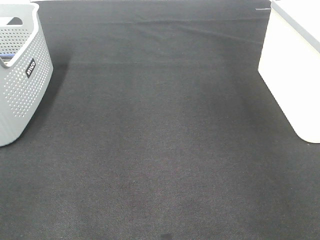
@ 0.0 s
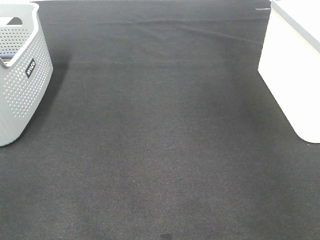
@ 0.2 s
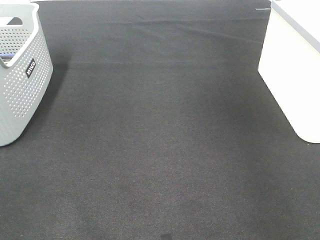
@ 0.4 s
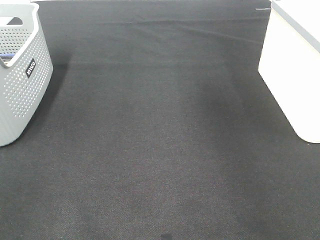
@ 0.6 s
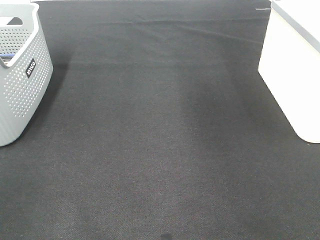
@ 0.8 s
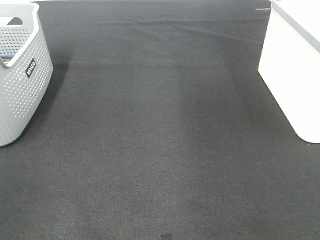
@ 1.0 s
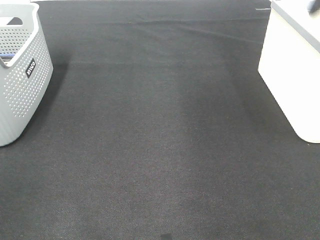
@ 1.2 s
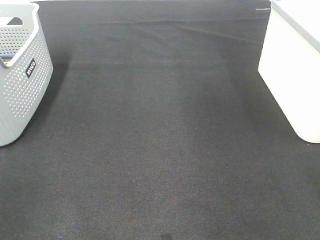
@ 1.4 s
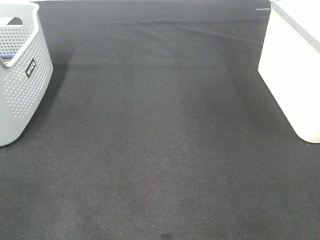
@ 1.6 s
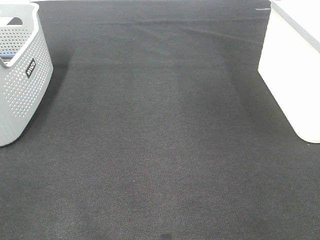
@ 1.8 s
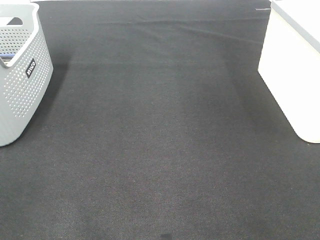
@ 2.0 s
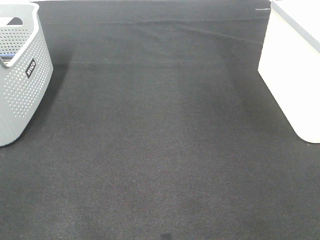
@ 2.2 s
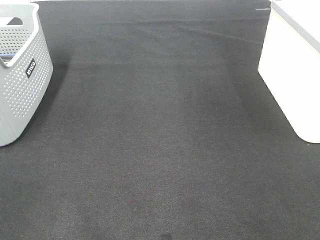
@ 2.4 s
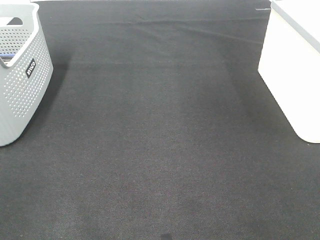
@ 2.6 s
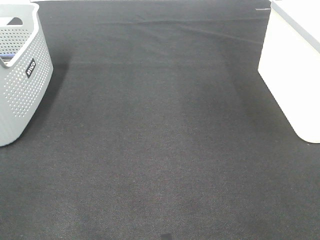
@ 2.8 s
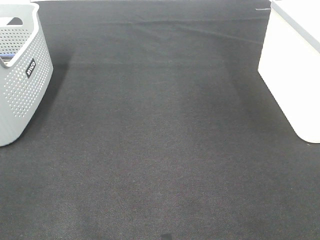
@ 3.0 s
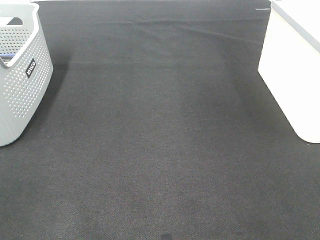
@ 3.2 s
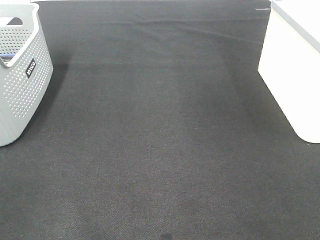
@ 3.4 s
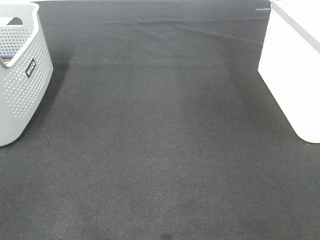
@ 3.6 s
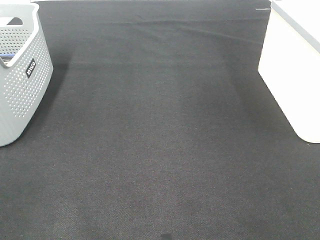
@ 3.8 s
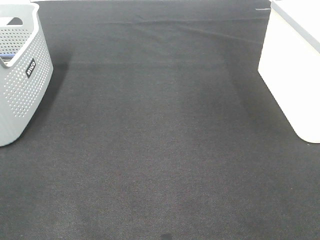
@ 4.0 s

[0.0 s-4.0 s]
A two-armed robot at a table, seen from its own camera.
2.6 to 4.0 s: Both grippers stay put.

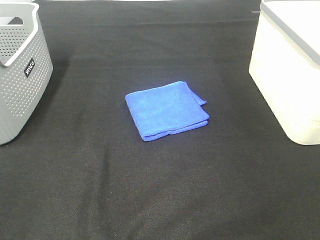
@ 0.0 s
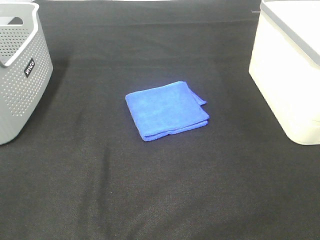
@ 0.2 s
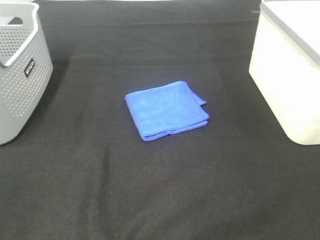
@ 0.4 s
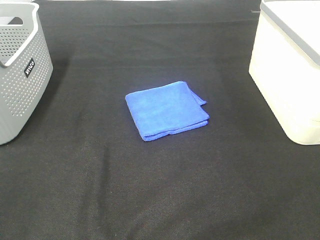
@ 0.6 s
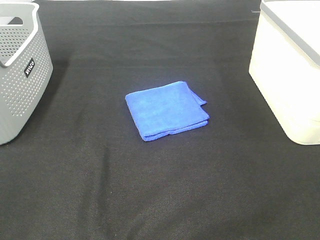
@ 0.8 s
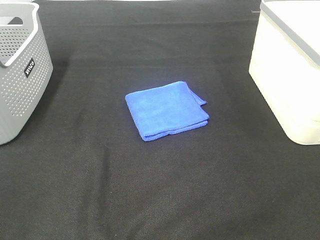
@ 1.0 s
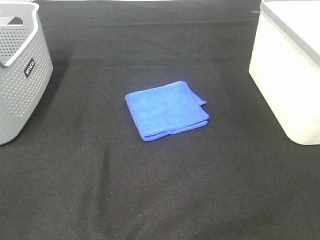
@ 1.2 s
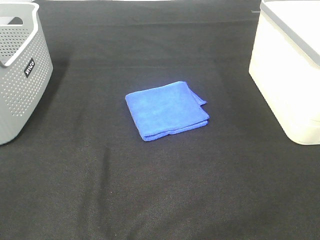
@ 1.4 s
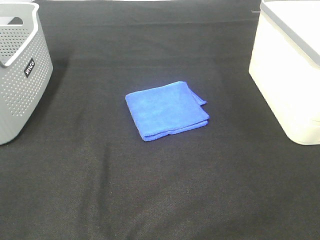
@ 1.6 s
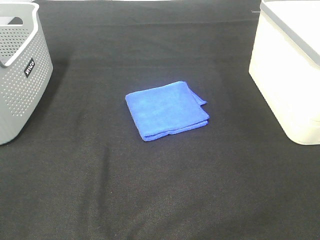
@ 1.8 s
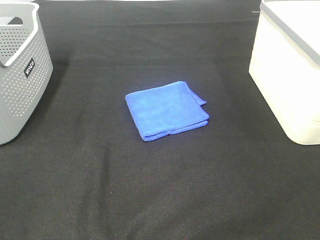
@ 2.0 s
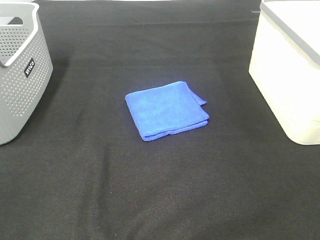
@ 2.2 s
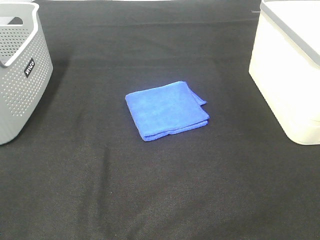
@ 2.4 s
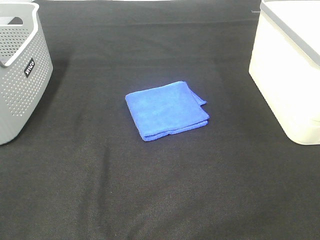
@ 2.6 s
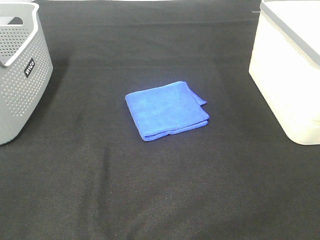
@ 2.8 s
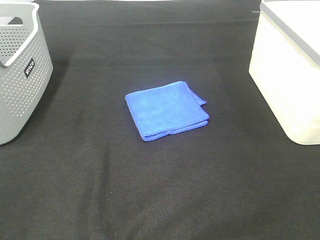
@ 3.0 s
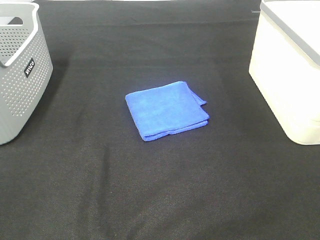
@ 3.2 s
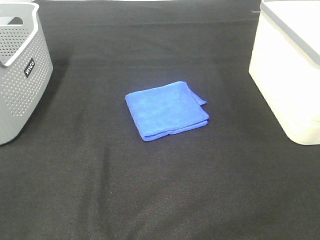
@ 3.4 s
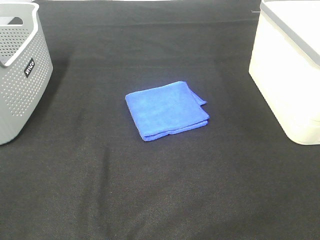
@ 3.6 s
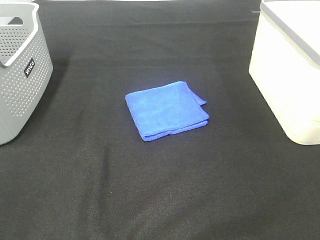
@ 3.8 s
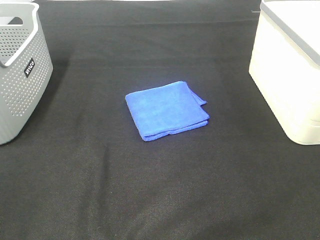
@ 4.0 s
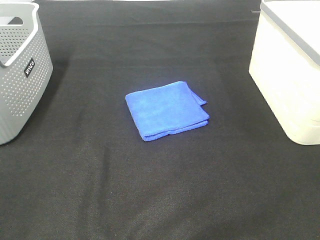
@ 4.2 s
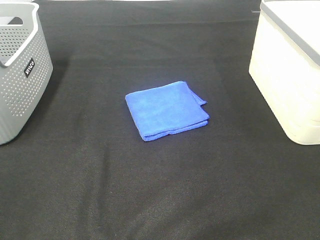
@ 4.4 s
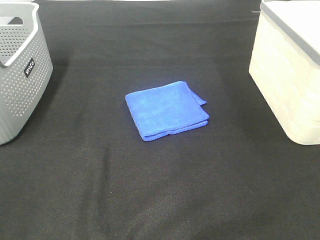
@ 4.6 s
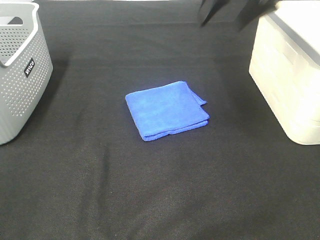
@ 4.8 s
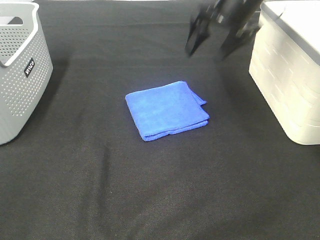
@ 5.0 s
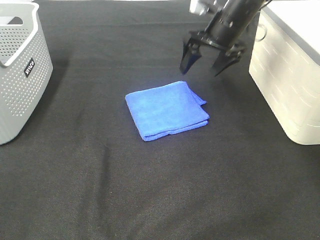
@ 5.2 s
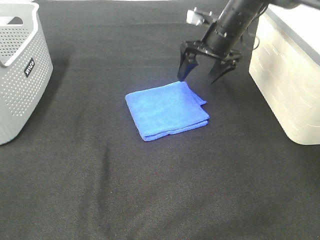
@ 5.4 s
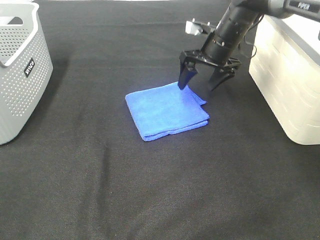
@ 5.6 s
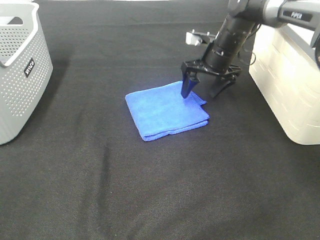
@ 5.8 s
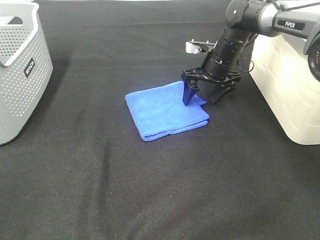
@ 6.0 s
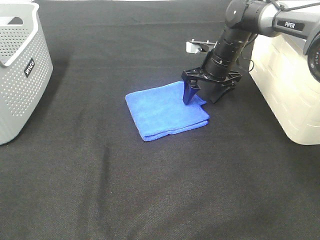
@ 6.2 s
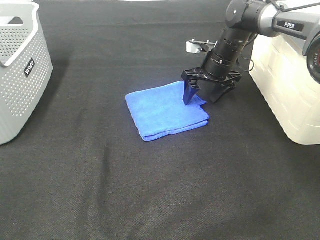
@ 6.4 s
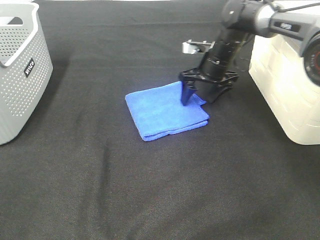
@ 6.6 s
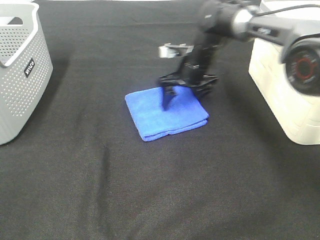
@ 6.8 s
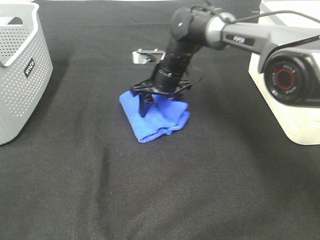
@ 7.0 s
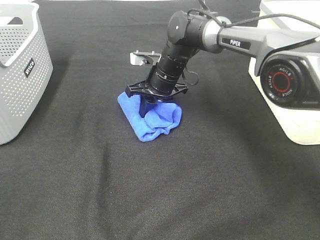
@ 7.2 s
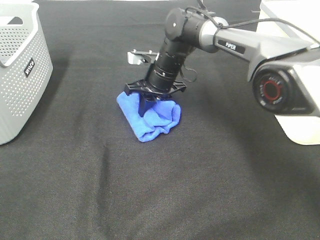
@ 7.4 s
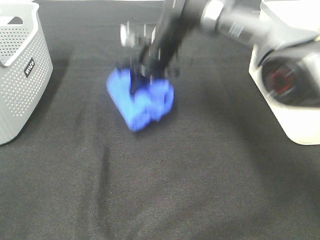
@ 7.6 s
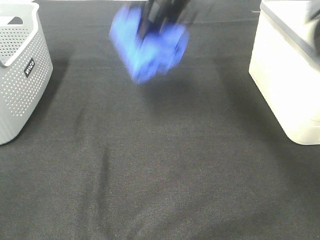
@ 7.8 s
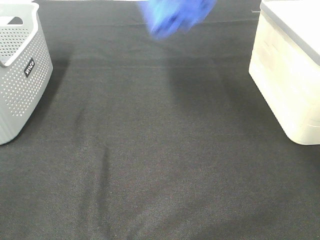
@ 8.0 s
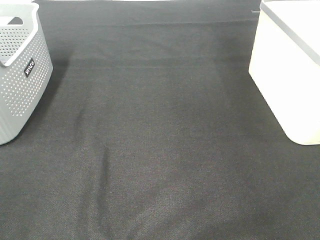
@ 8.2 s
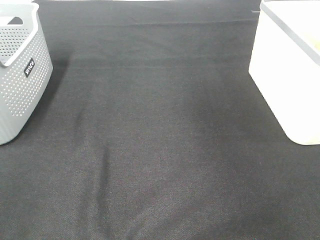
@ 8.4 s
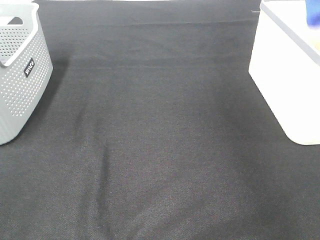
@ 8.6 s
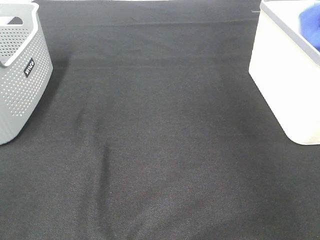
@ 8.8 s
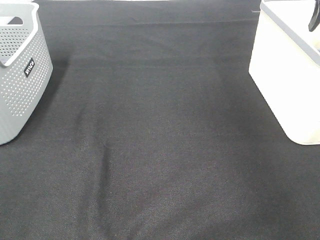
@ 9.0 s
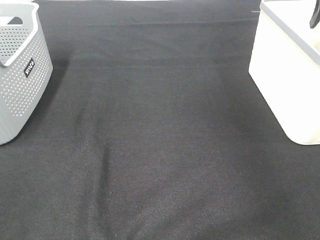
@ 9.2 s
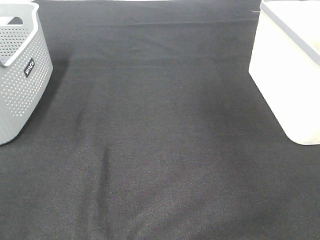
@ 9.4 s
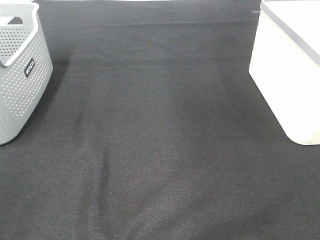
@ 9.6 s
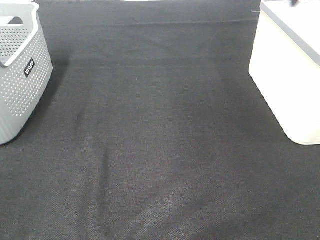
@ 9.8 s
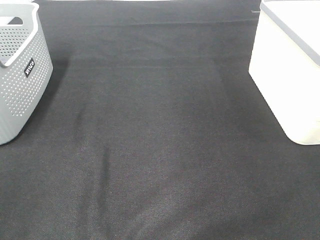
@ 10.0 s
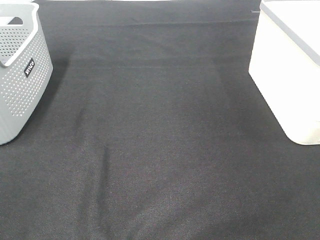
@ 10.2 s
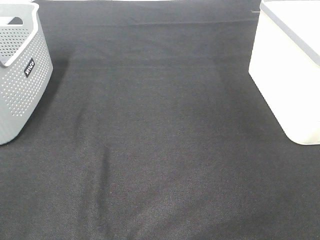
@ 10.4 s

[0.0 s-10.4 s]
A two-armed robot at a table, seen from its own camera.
Step, 0.0 to 7.4 s: Right hand: grab the folded blue towel.
Step, 7.6 to 8.8 s: Right hand: place the blue towel in right basket.
0.0 to 3.0 s: Neither gripper changes place.
4.4 to 6.0 s: The right gripper is displaced downward and forward by about 40 cm.
6.0 to 7.4 s: The right gripper is displaced to the left by roughly 15 cm, and closes up.
7.4 to 9.0 s: The right gripper is displaced to the right and upward by roughly 40 cm, and opens up.

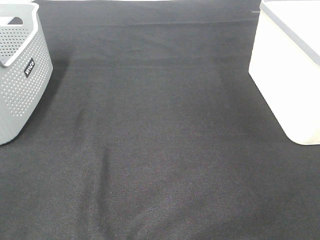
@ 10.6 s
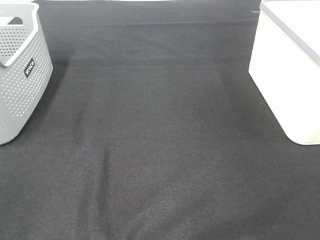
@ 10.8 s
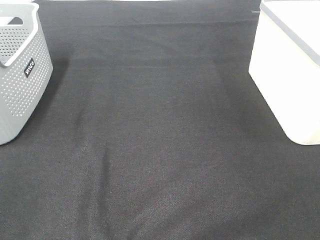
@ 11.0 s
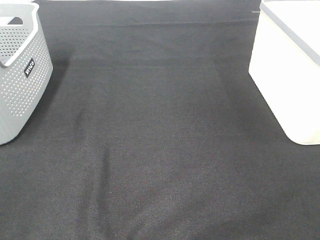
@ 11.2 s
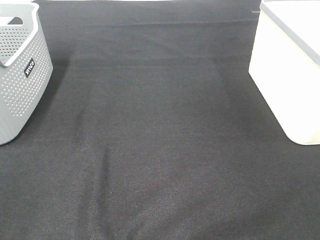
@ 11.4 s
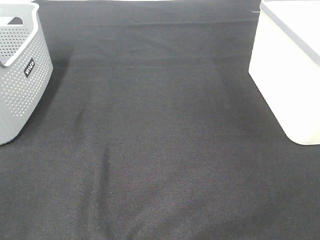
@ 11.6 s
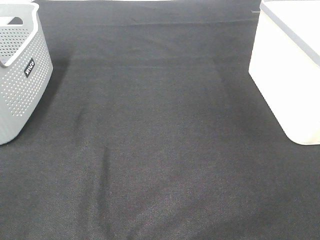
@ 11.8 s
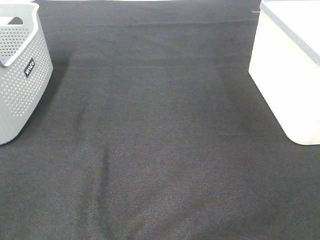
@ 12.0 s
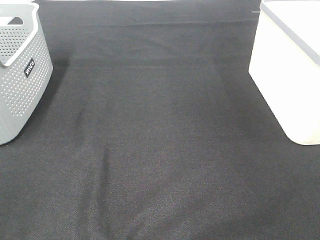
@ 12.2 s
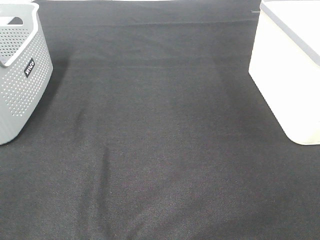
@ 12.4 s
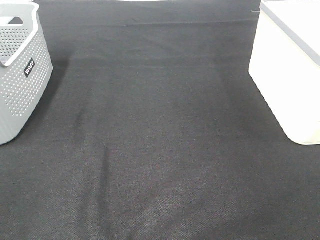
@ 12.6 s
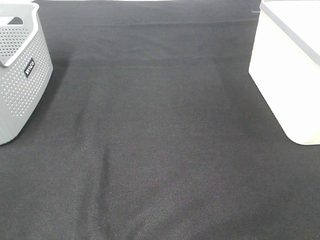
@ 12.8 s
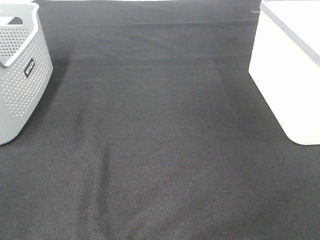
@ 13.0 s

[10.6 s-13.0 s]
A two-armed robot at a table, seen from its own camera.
11.8 to 13.0 s: The two grippers keep their place.

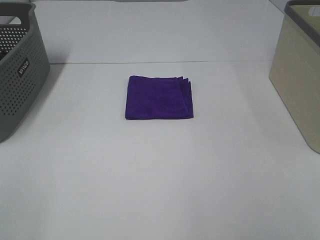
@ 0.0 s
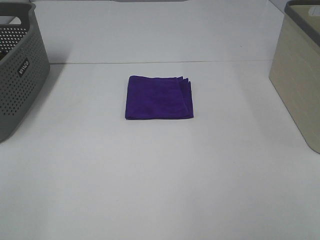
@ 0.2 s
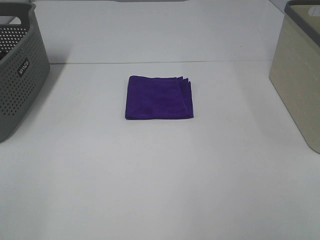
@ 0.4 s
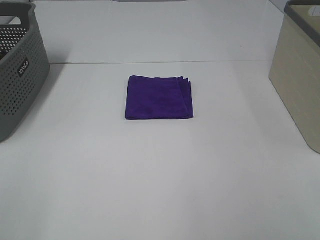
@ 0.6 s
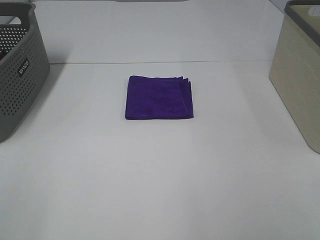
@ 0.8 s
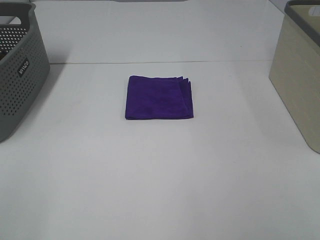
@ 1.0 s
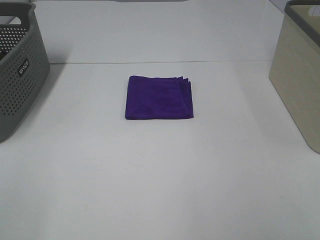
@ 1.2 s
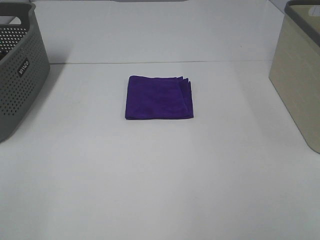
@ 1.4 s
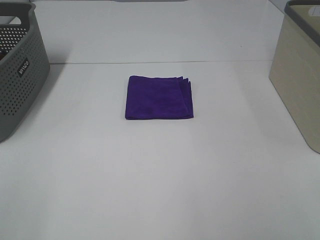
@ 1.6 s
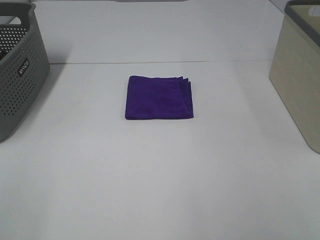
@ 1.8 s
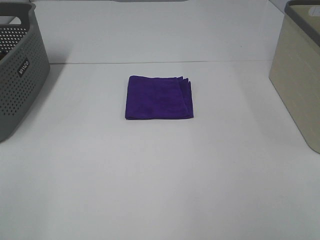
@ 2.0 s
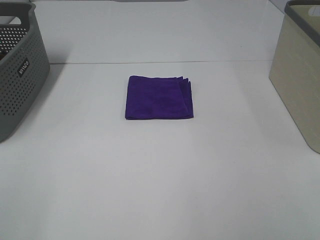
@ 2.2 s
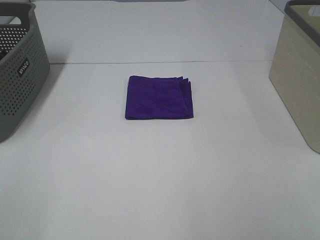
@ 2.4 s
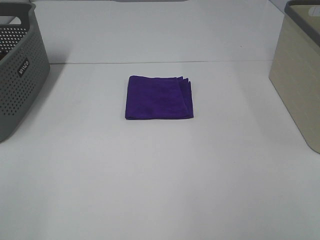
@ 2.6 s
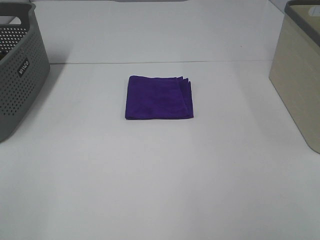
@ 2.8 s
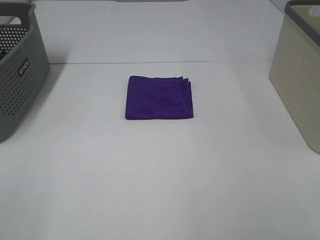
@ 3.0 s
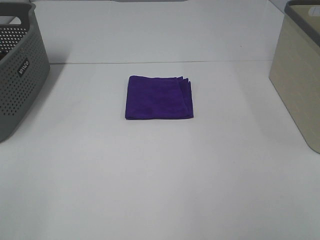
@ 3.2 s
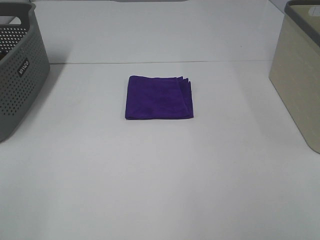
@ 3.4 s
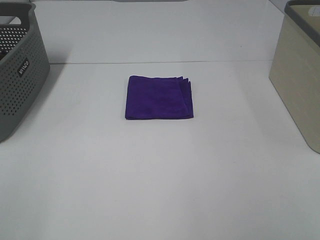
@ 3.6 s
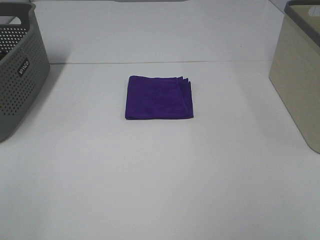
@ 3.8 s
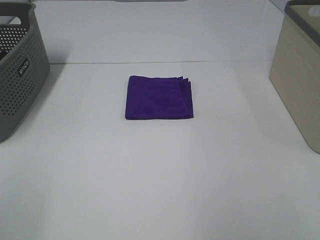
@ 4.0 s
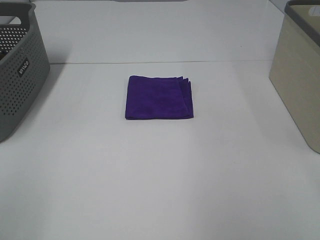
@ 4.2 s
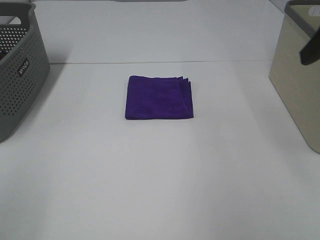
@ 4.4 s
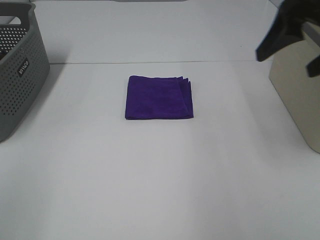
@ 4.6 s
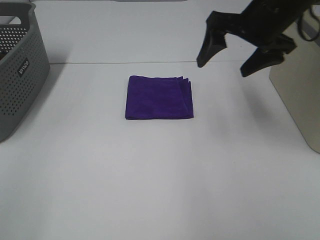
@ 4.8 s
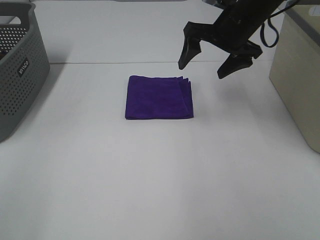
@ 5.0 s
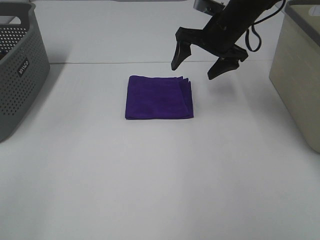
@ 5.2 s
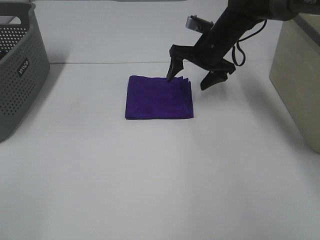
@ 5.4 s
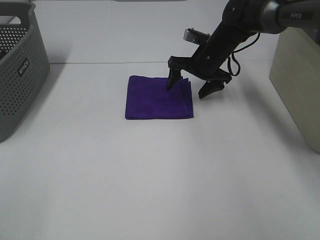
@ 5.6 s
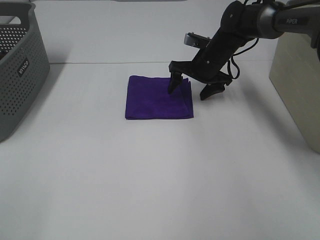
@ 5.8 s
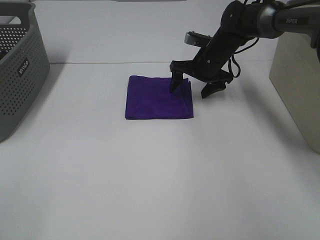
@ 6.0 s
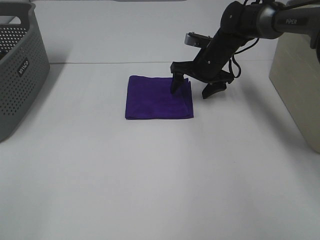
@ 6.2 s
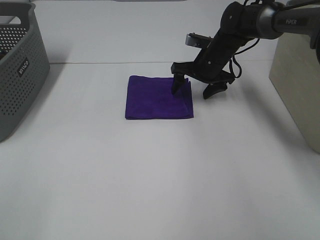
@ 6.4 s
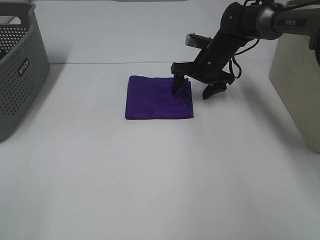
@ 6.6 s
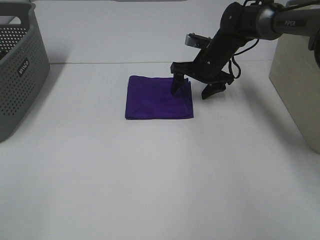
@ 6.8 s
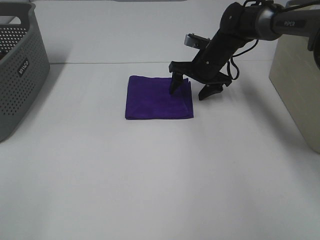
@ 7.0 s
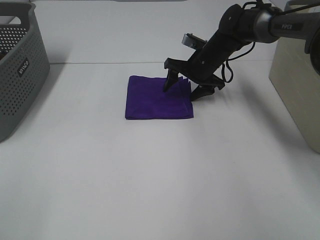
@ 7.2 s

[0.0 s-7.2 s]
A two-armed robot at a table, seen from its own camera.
0.0 to 2.8 s: Neither gripper changes place.
4.4 to 5.8 s: The right gripper moves forward, downward and to the left, approximately 35 cm.
5.8 to 7.2 s: The grippers move only a little.
